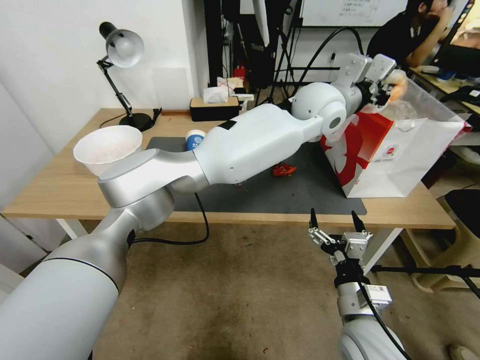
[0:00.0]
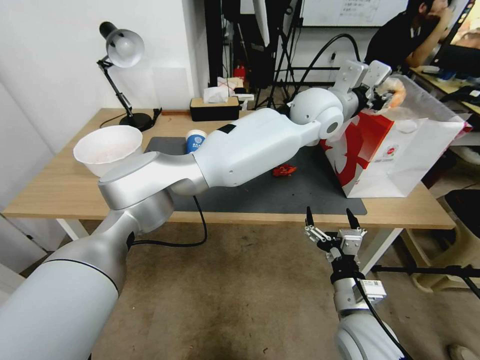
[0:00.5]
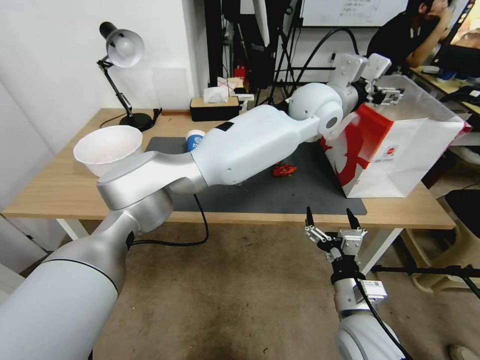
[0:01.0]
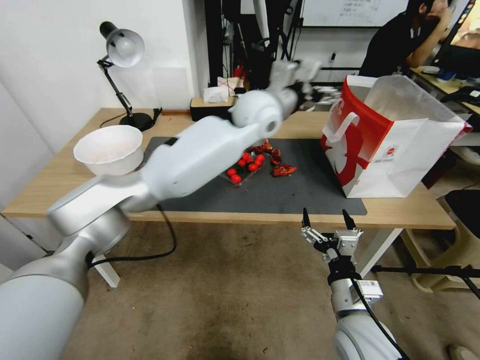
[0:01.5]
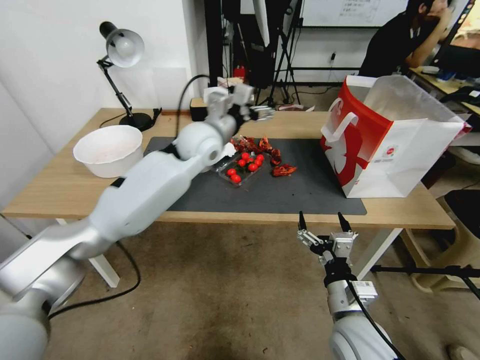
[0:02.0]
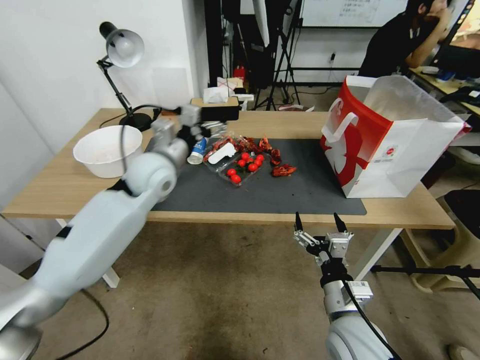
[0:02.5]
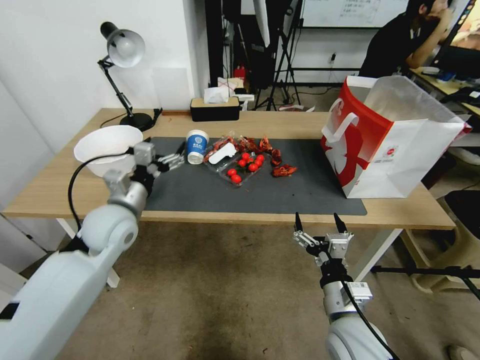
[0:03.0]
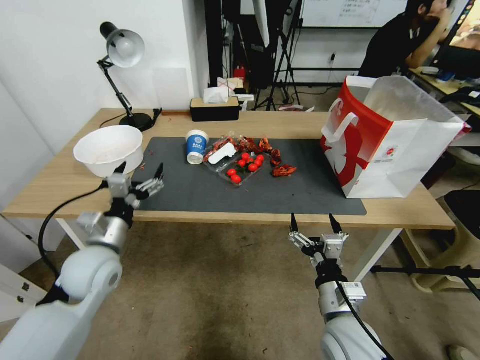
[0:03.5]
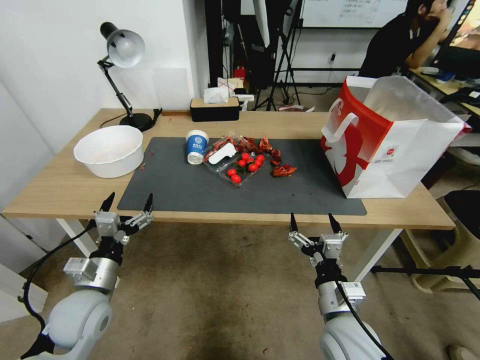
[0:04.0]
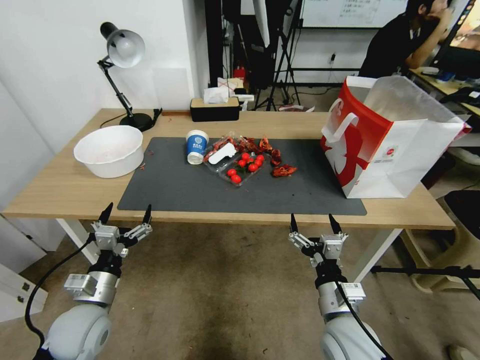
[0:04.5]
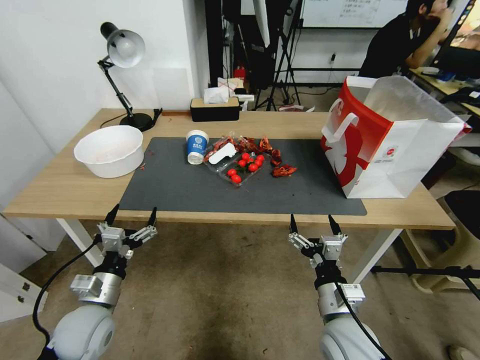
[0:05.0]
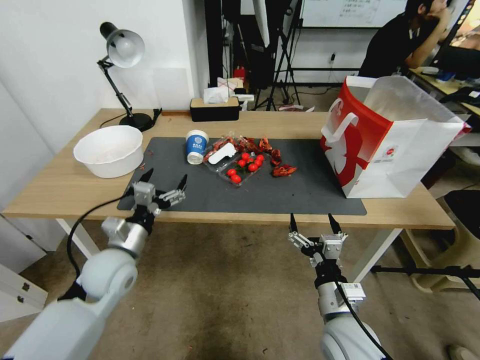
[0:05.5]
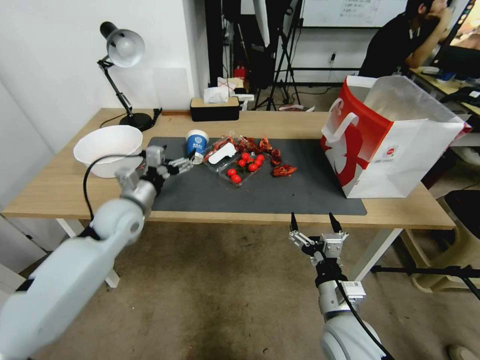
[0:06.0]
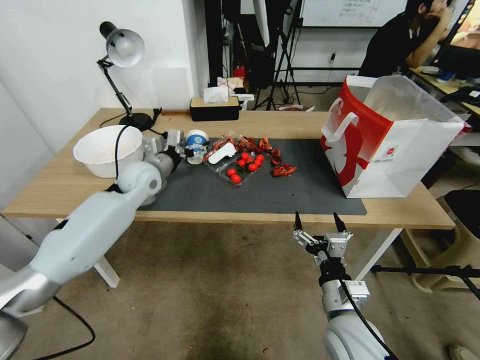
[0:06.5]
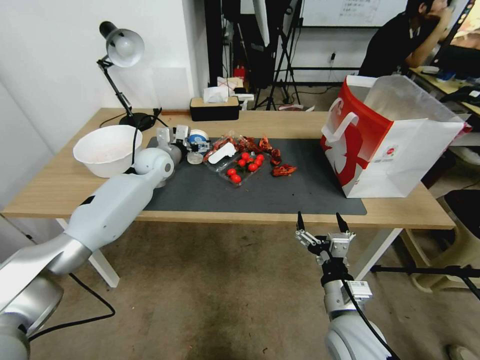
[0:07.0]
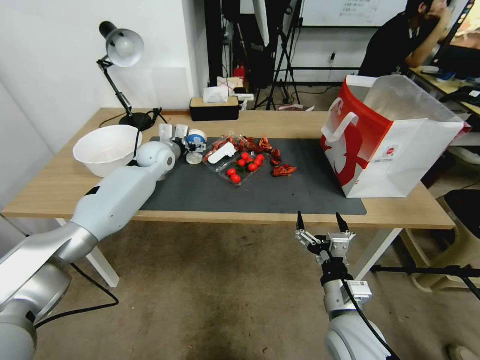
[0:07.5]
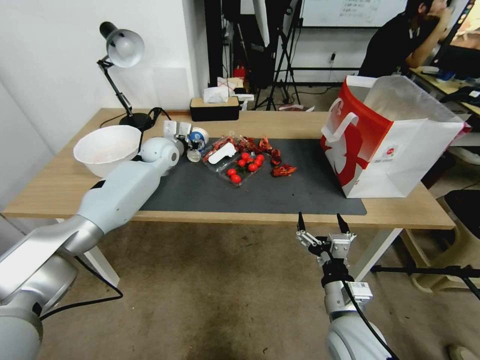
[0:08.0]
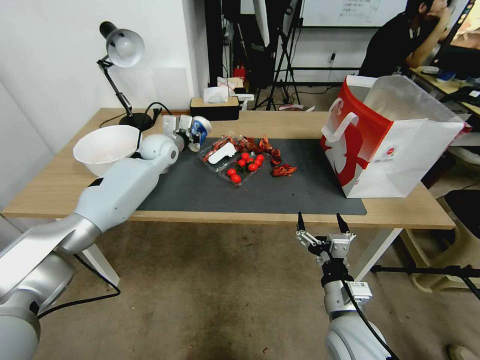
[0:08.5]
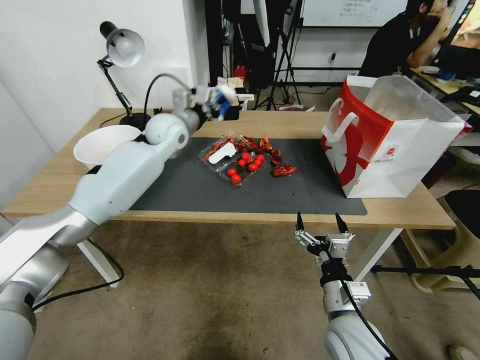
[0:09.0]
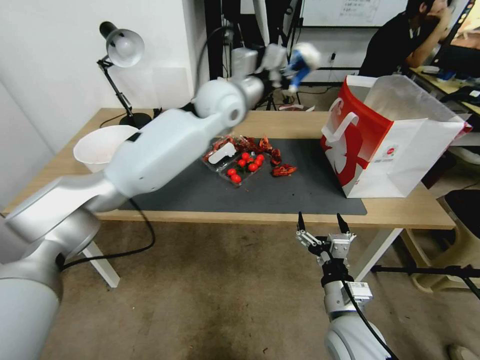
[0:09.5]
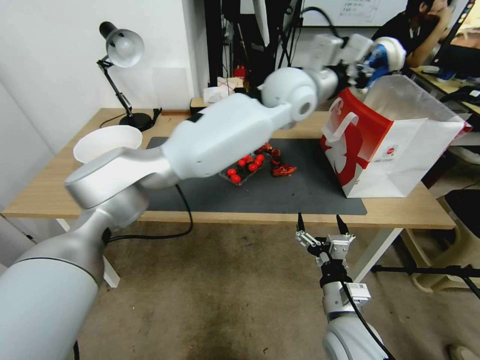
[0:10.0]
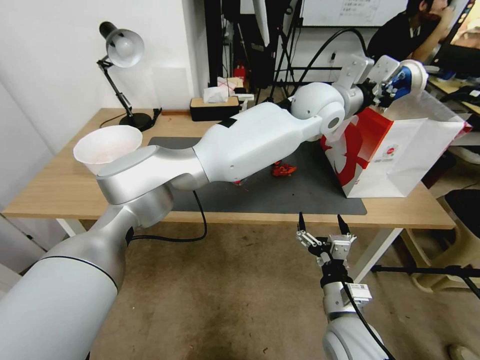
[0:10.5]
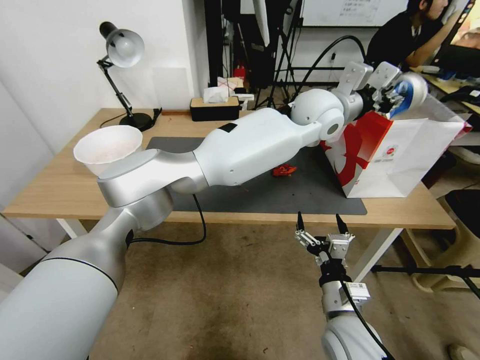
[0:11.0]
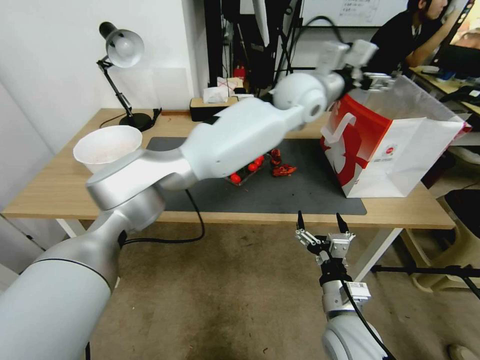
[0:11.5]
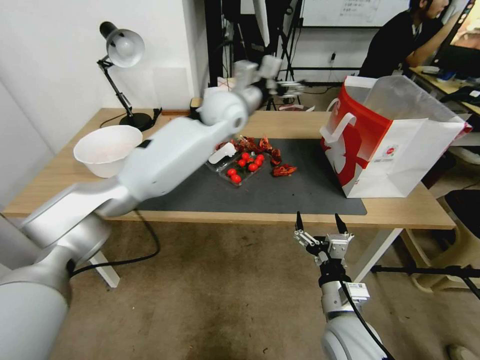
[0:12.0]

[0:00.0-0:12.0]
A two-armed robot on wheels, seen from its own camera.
0:00.0 to 0:02.0: The left gripper shifts roughly 25 cm to the left, and opens its fingers.
0:02.0 to 0:04.0: The left gripper goes some 40 cm backward, to the left and downward.
0:04.0 to 0:06.0: The left gripper moves forward and upward, some 15 cm.
0:06.0 to 0:08.0: The left gripper shifts about 25 cm forward, and closes up.
0:08.0 to 0:10.0: The left gripper shifts about 40 cm to the right and upward, and closes.
0:10.0 to 0:12.0: The left gripper shifts some 15 cm to the left and downward, and opens.

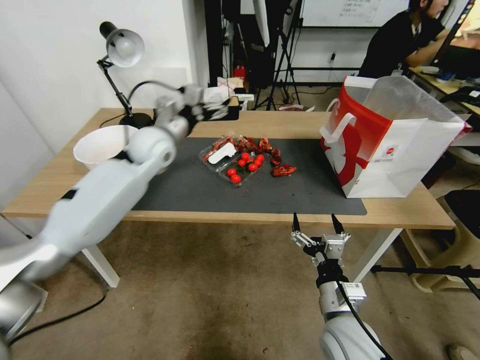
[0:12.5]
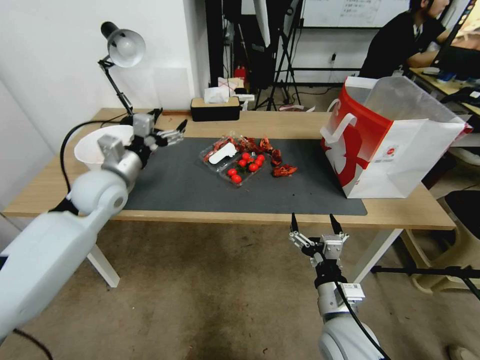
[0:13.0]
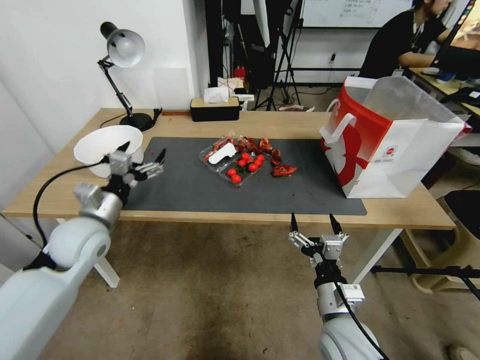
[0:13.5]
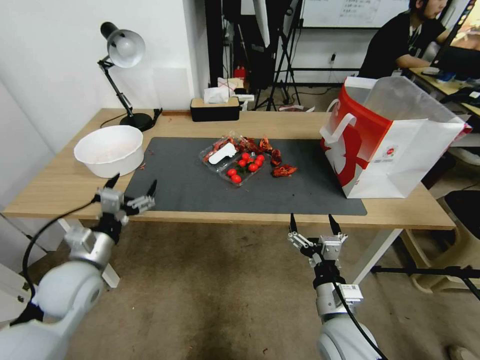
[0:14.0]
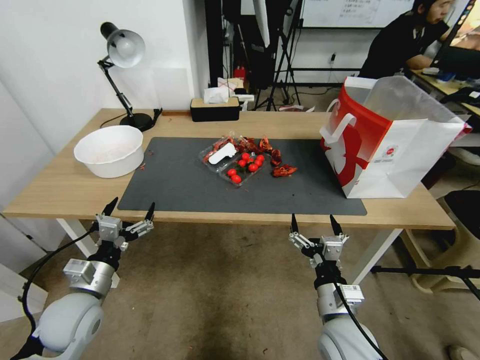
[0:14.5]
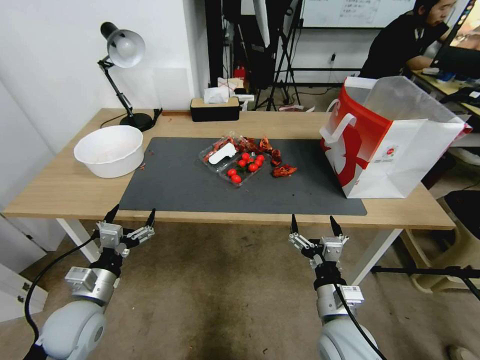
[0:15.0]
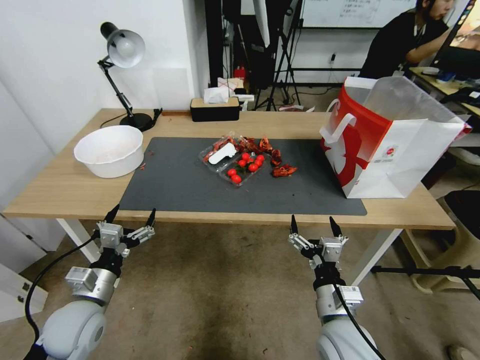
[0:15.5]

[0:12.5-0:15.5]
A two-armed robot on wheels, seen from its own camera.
0:12.5 to 0:14.0: The left gripper moves backward, downward and to the left, approximately 35 cm.
0:14.0 to 0:15.5: The left gripper heads downward, covering about 5 cm.

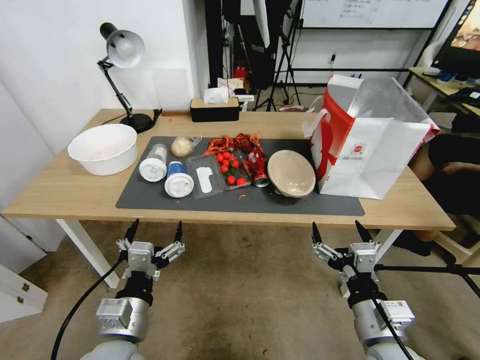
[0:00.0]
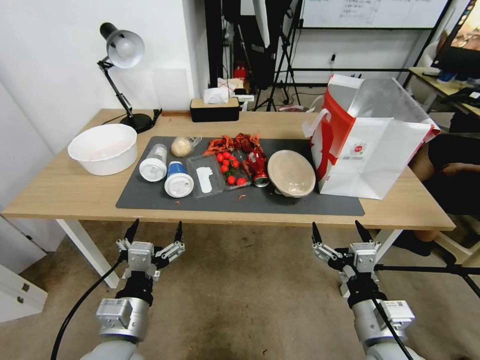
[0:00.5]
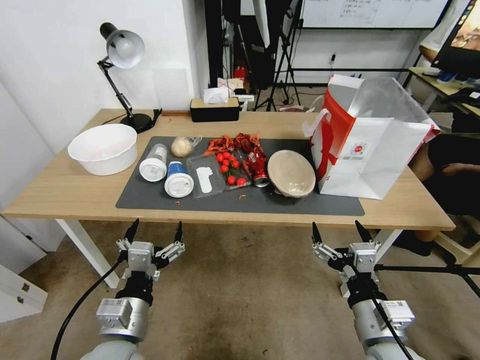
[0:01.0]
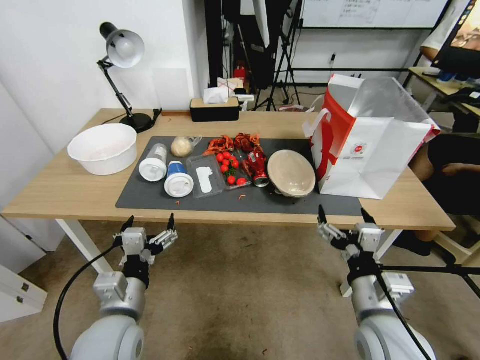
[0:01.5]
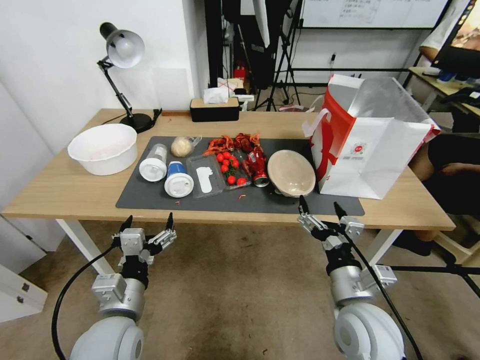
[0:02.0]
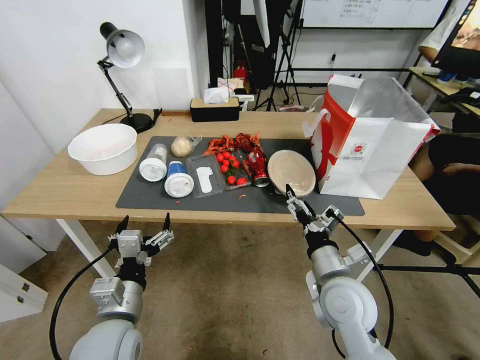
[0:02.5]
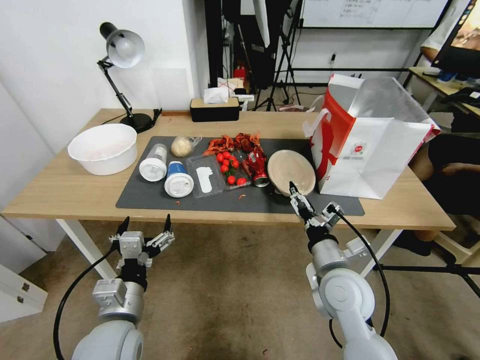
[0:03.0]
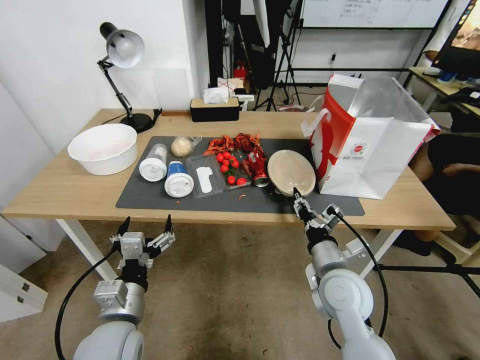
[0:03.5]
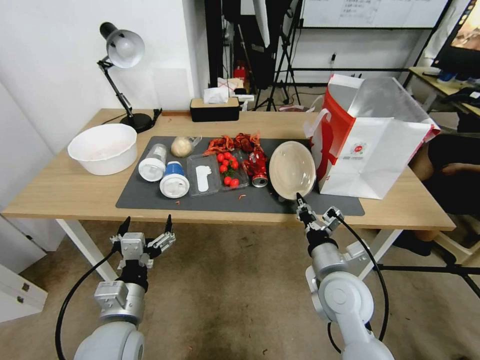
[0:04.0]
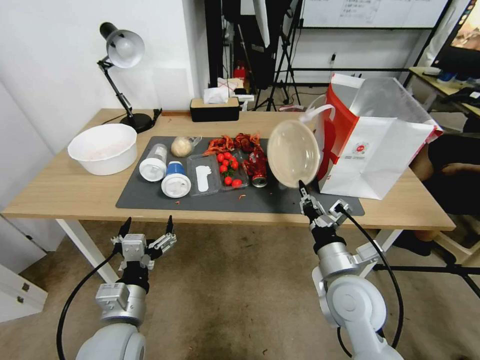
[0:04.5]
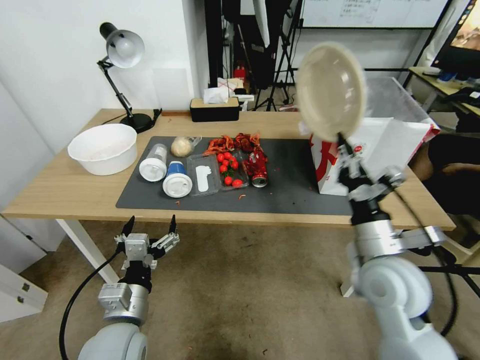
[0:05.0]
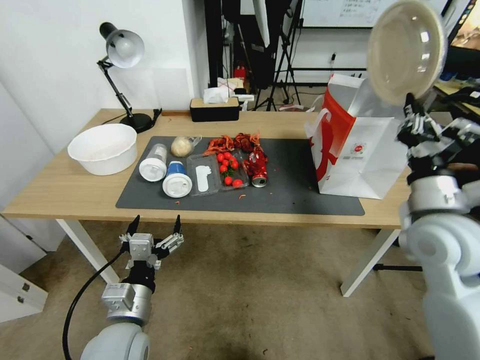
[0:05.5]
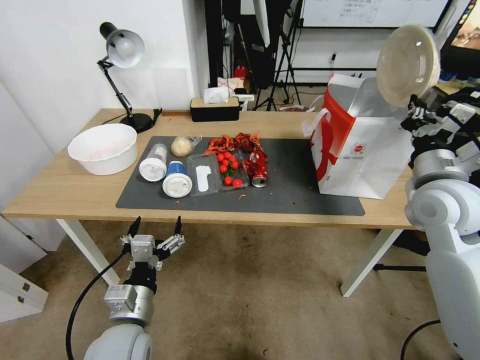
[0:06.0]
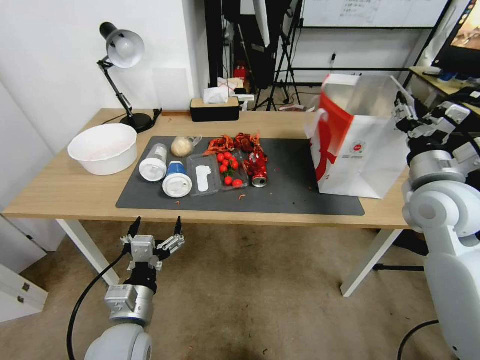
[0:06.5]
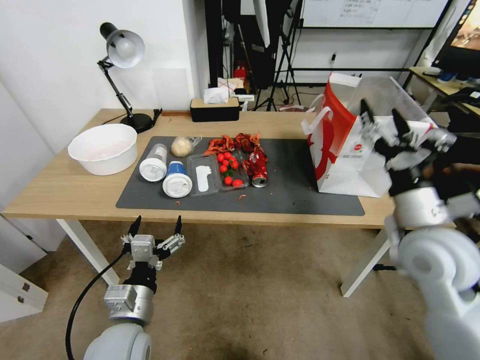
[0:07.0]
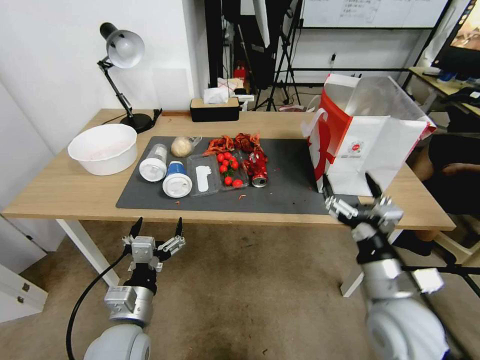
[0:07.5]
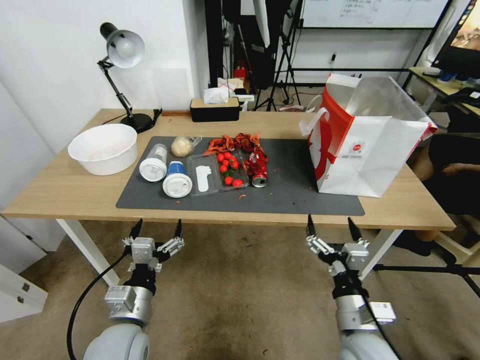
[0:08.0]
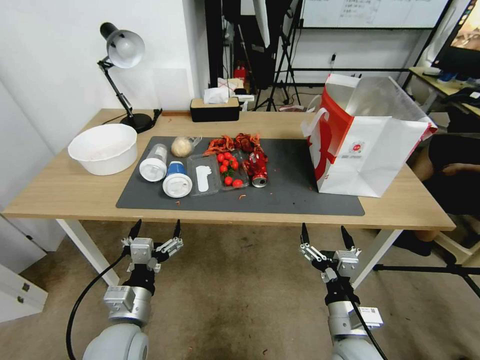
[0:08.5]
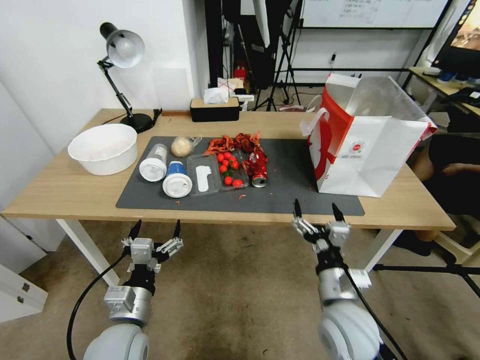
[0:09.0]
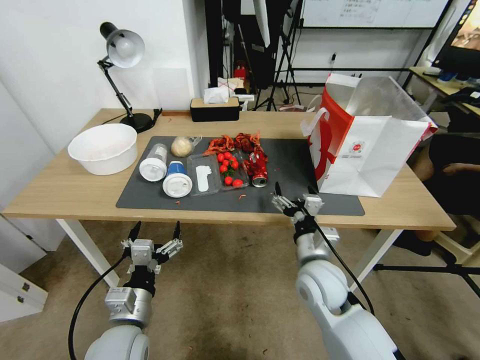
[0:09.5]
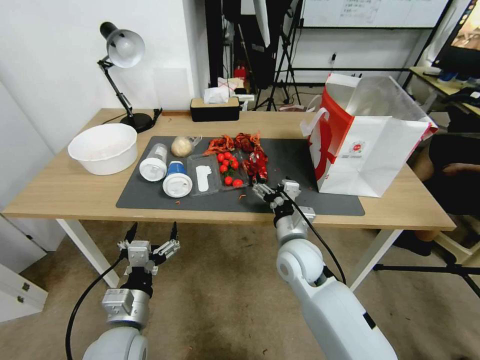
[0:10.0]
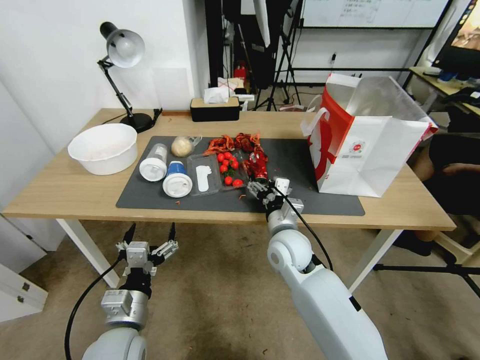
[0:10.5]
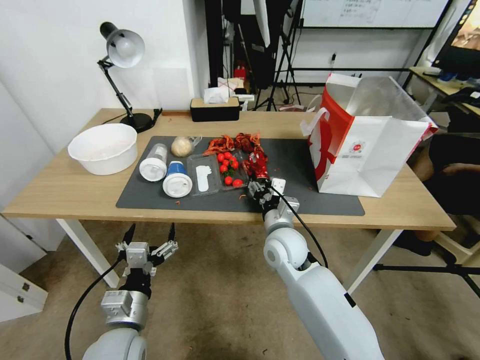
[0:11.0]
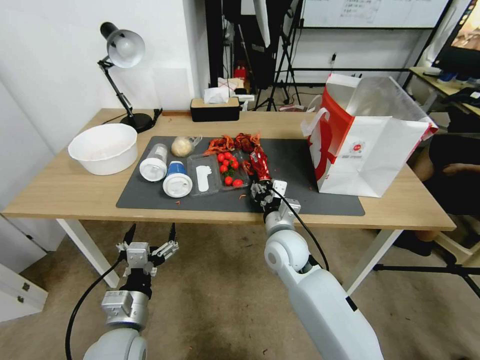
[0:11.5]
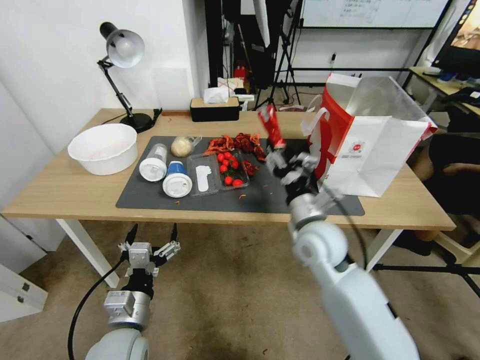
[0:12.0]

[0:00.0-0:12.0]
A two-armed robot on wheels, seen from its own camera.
0:02.0 to 0:04.0: The right gripper heads forward, covering some 5 cm, and closes.
0:04.0 to 0:06.0: The right gripper heads upward, to the right and forward, covering approximately 25 cm.
0:06.0 to 0:08.0: The right gripper shifts approximately 30 cm downward, backward and to the left, and opens its fingers.
0:08.0 to 0:10.0: The right gripper travels forward and to the left by about 20 cm.
0:10.0 to 0:12.0: The right gripper goes roughly 5 cm upward, and closes its fingers.
